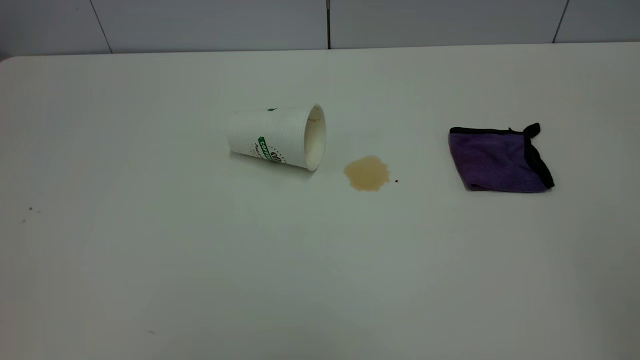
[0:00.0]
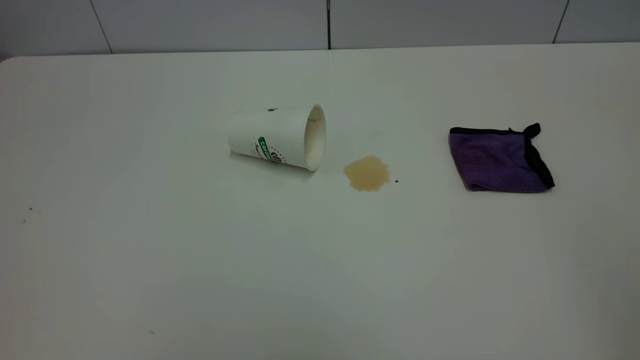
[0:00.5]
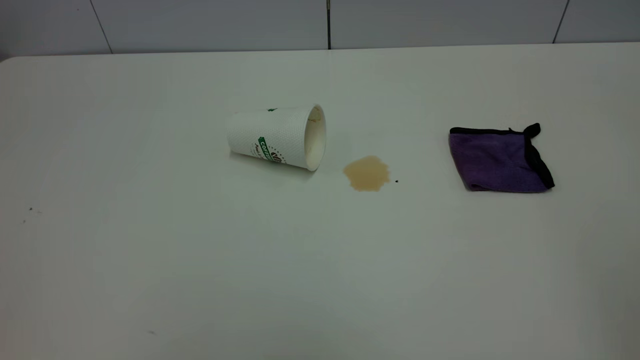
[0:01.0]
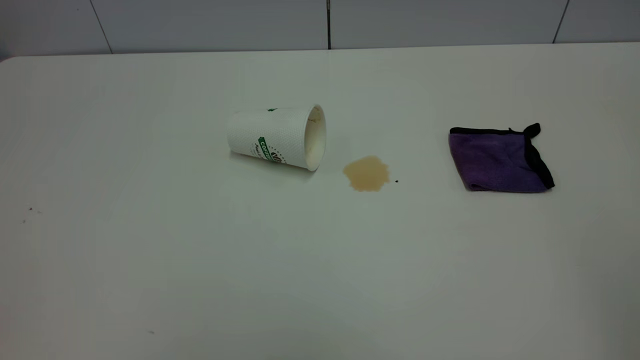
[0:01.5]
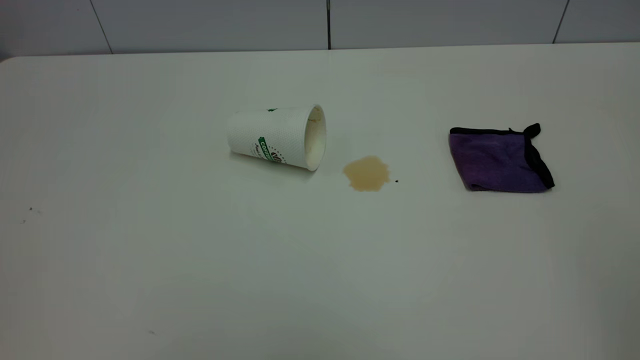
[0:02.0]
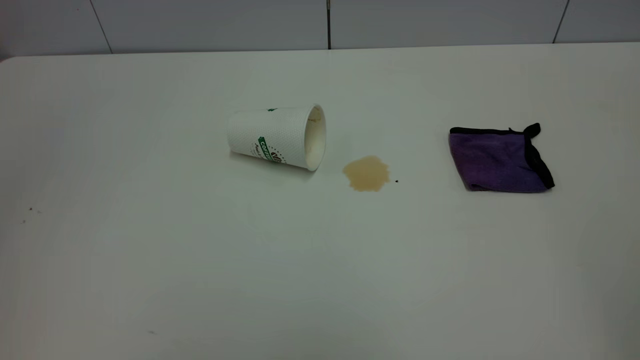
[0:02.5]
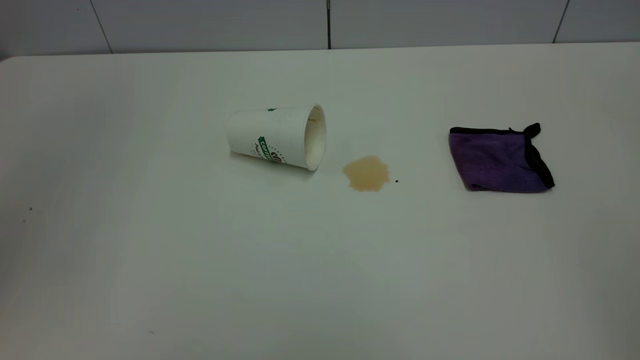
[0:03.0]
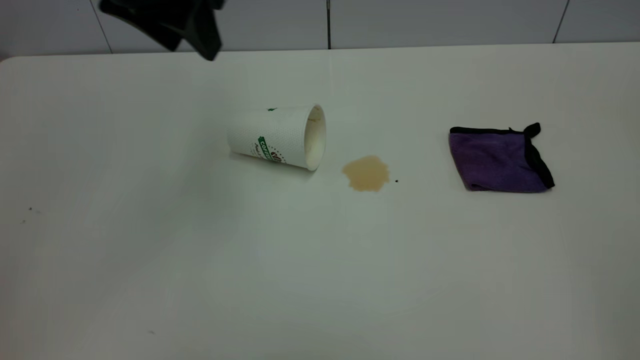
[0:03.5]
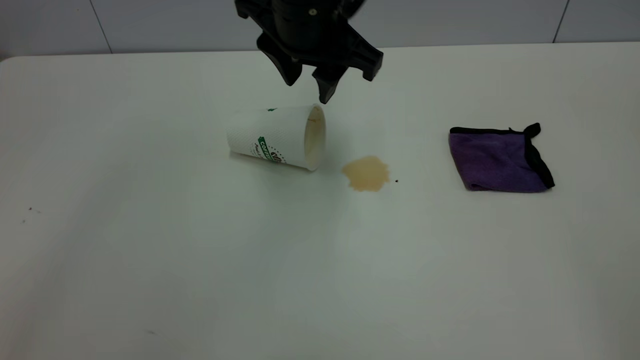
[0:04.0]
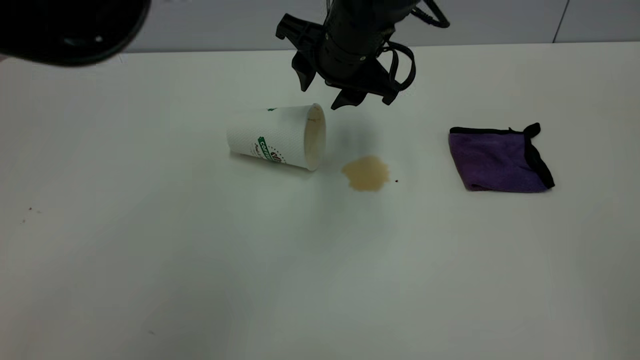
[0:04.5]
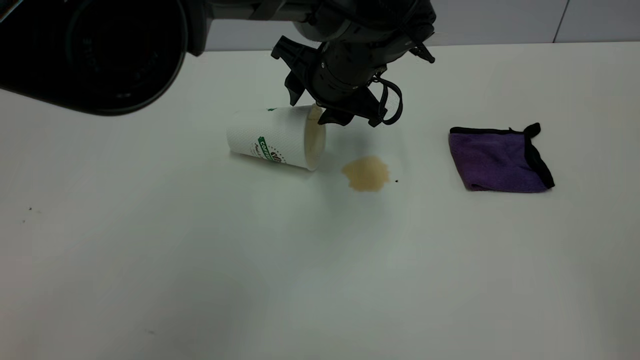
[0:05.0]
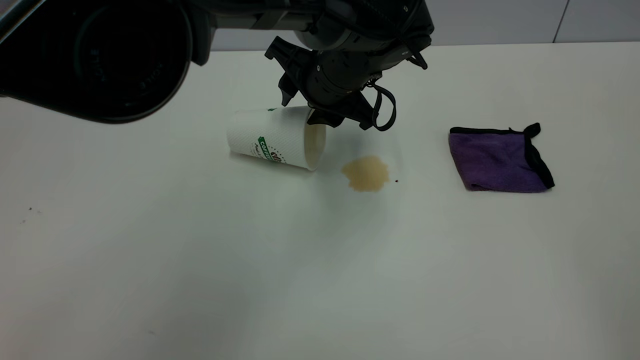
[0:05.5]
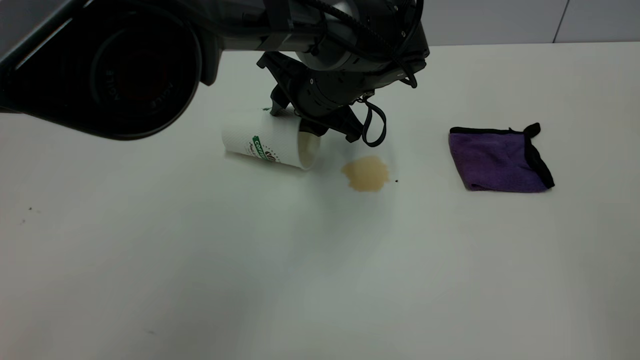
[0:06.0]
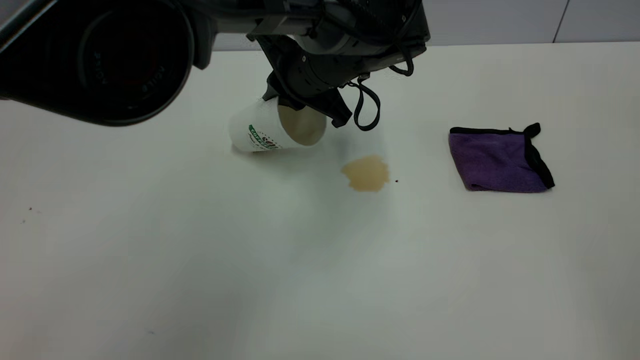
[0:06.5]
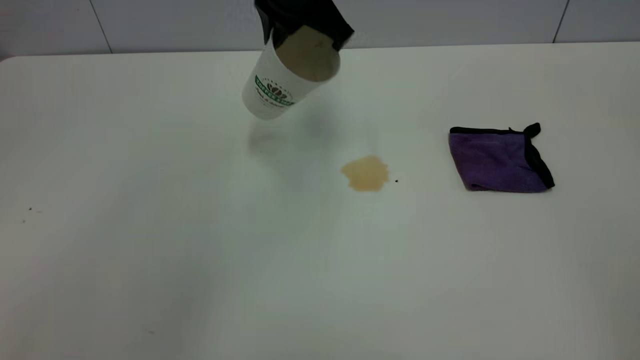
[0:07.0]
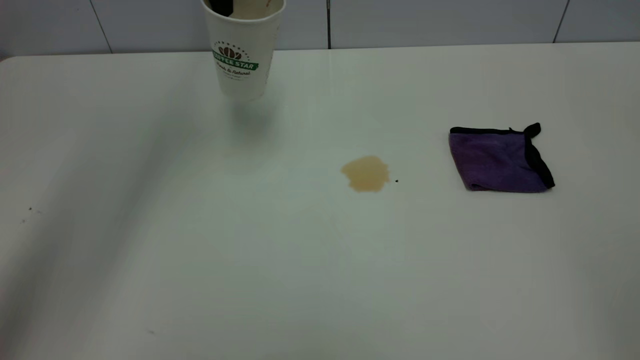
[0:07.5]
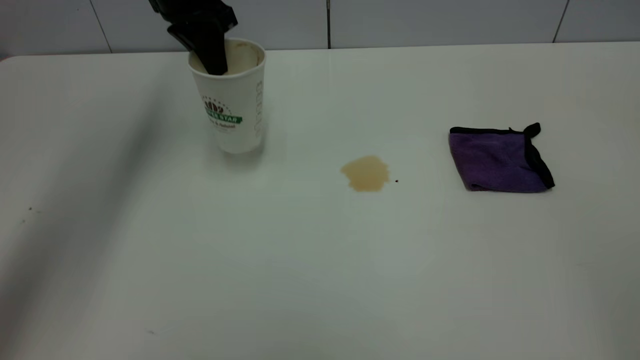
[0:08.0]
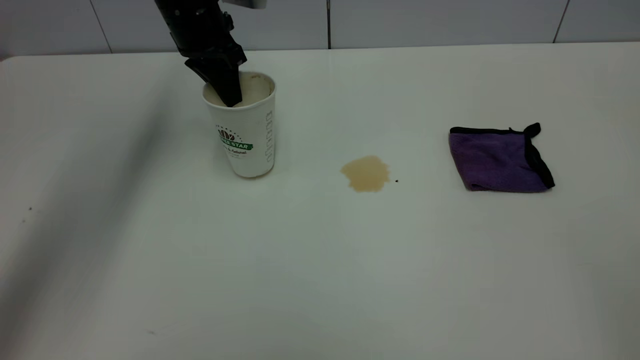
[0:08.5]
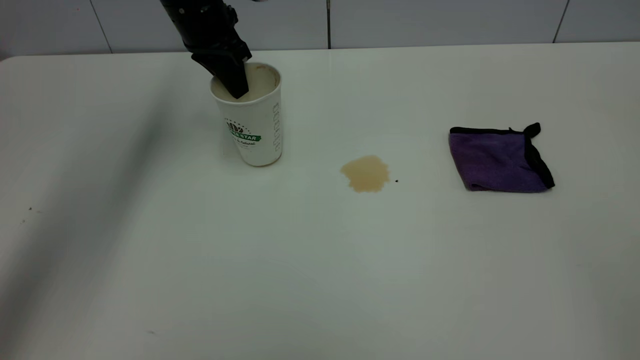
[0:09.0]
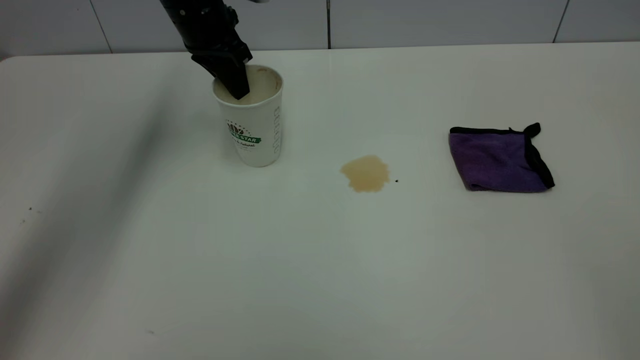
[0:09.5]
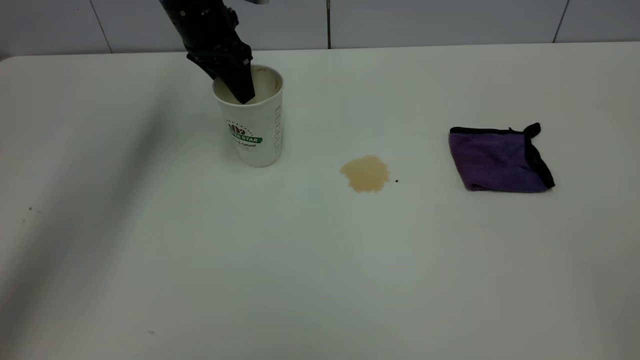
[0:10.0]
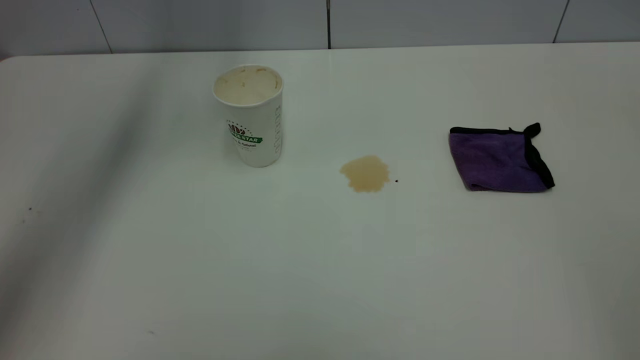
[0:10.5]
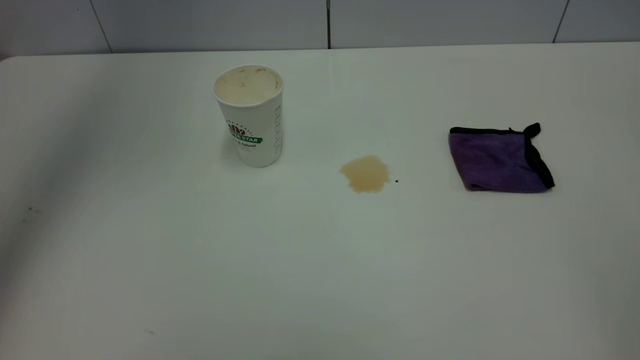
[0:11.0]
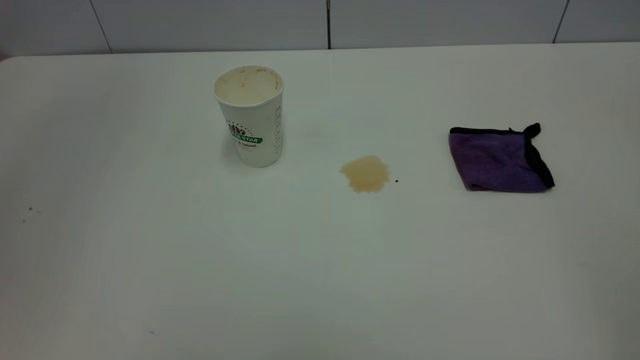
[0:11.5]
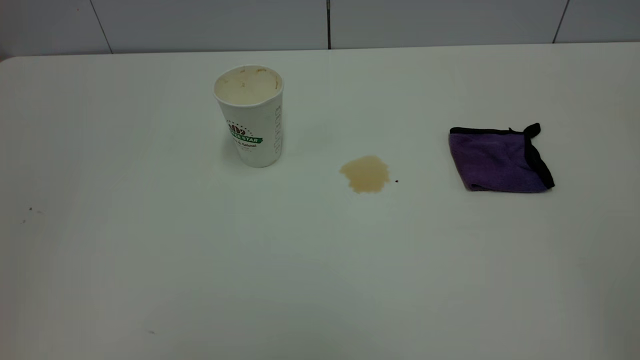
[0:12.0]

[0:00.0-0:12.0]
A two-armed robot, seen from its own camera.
Task of the whole recording: the left gripper pick up the fallen cup and place it upright, the right gripper grasp the purple rag and wipe the tea stain on the table, the right gripper put the purple rag back in its original position.
Step, 0:00.0 to 0:10.0: Stand the paper cup upright.
0:02.0 to 0:04.0: The left gripper heads forward and to the right, covering about 50 cm.
0:04.0 to 0:06.0: The left gripper shifts approximately 10 cm downward.
0:06.0 to 0:08.0: The left gripper is displaced to the left, upward and forward by some 20 cm, and closes.
0:08.0 to 0:10.0: The left gripper opens up.
0:10.0 to 0:12.0: The left gripper is displaced backward and upward by approximately 50 cm.

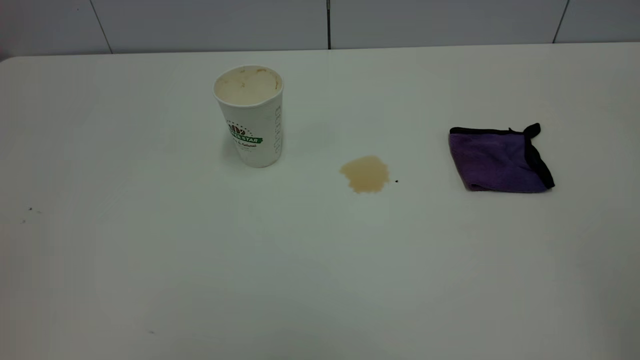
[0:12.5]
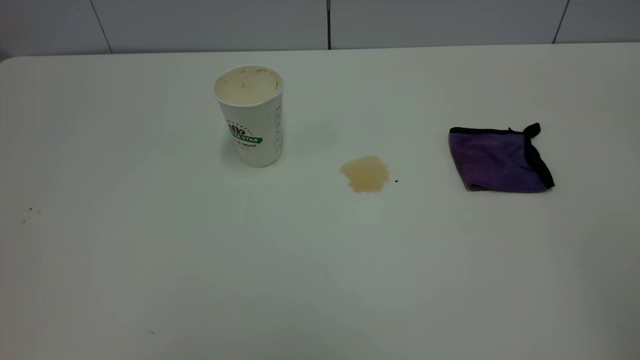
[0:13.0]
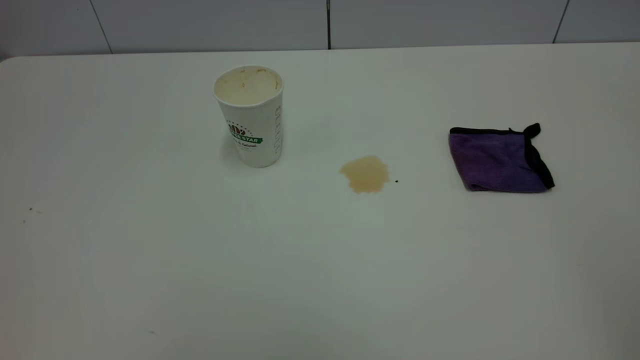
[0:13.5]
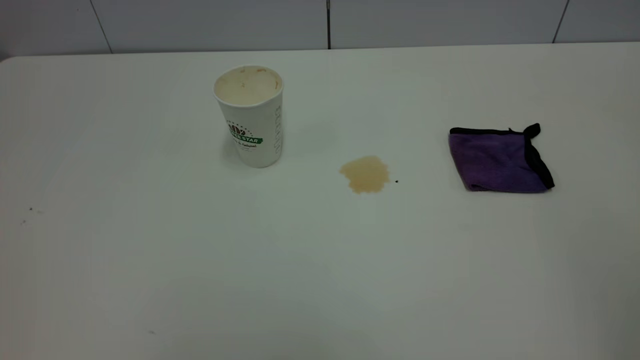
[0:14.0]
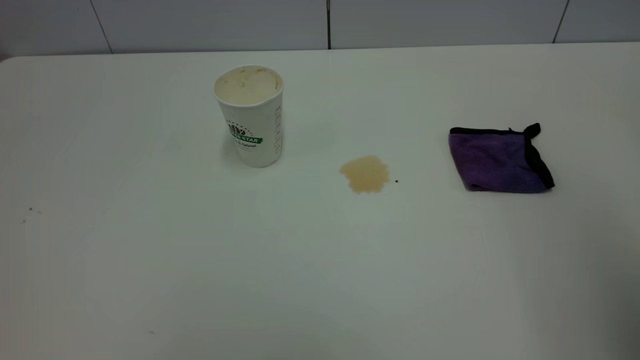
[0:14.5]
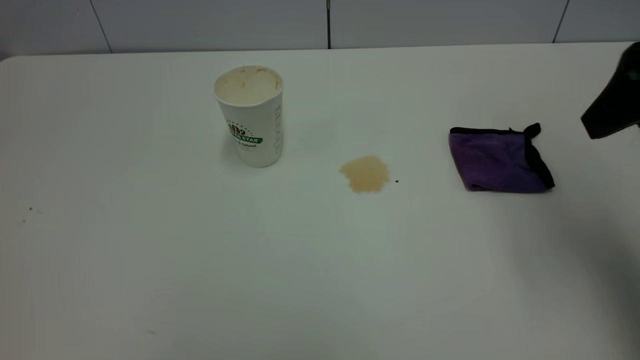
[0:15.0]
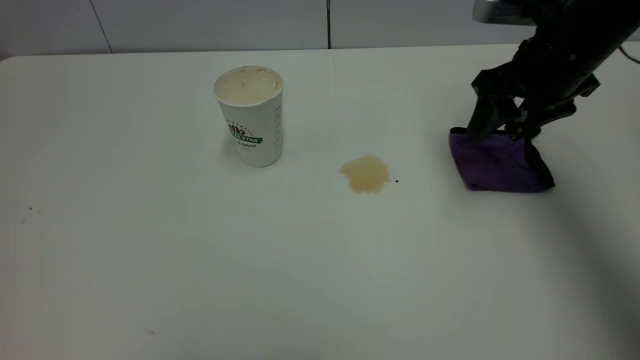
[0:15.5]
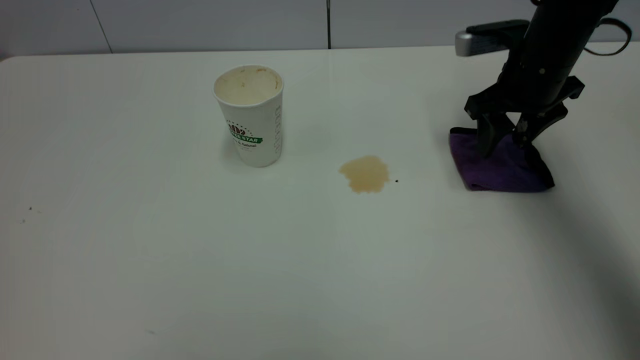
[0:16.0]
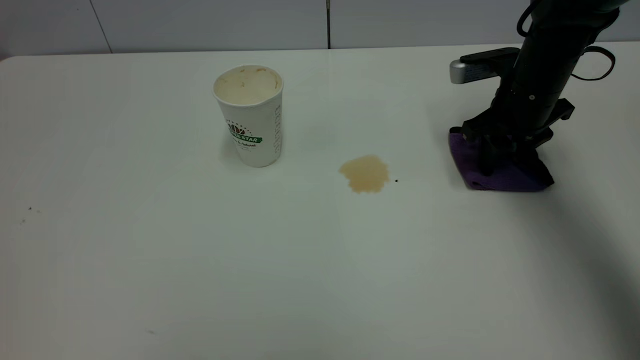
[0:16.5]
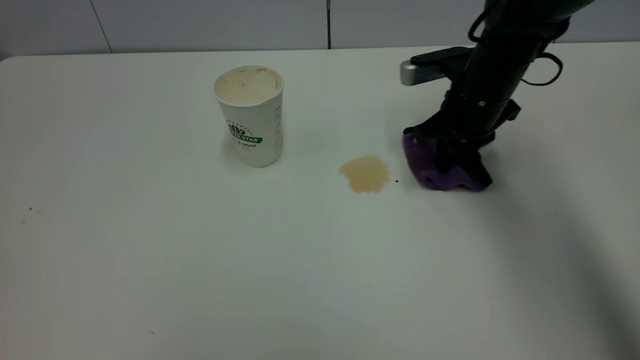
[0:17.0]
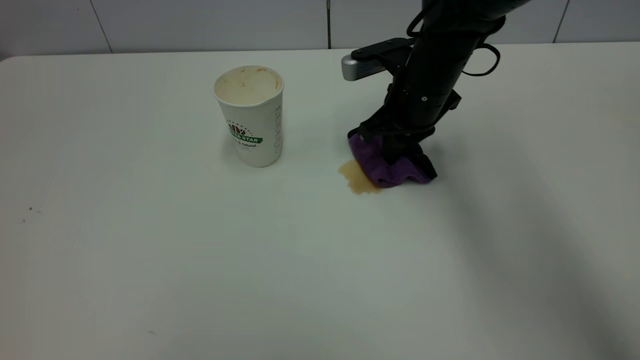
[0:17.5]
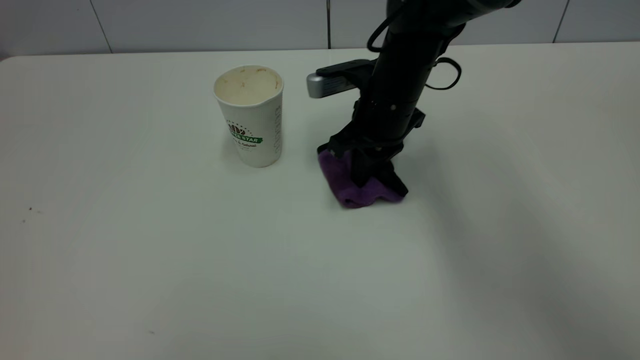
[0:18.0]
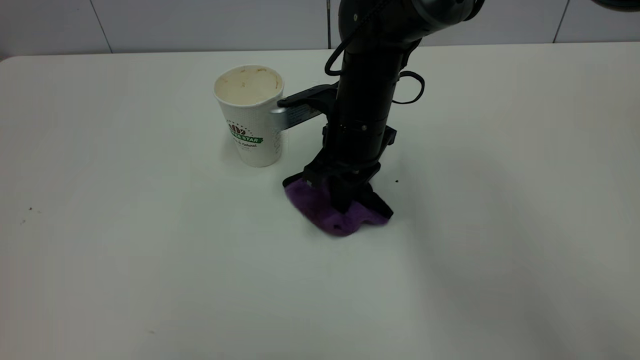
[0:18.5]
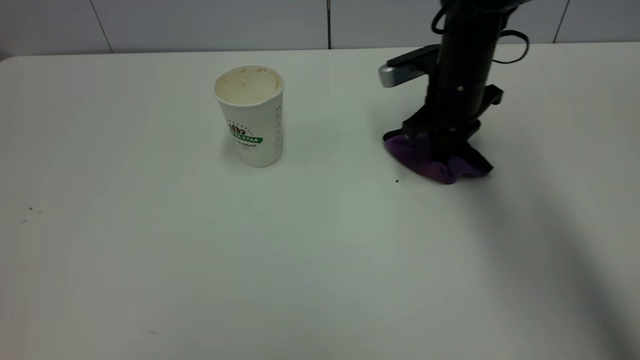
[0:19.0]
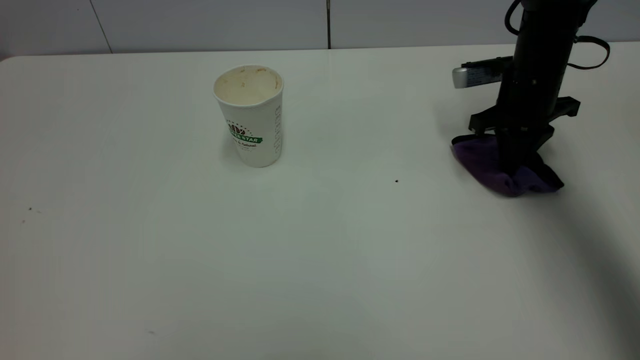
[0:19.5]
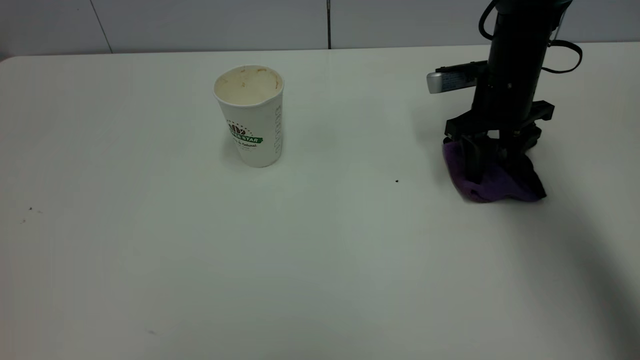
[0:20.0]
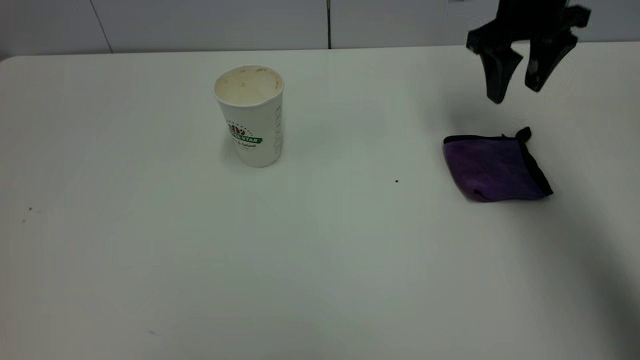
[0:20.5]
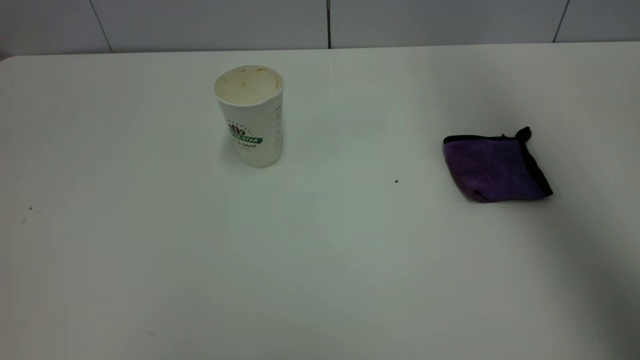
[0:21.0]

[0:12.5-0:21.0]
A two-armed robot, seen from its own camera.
Task of the whole recording: the left gripper pick up the fallen cup and place it upright, the right gripper grasp the purple rag and wipe the tea stain on the table, the right gripper put the purple rag back in its original position.
Step, 0:12.5 to 0:20.5: Wipe the stains off the table with a rag.
0:14.5 to 0:16.5: The right gripper moves forward and downward, roughly 40 cm, and closes.
0:16.5 to 0:19.0: The right gripper is displaced to the left by roughly 5 cm, and closes up.
0:19.0 to 0:21.0: The right gripper heads upward, covering roughly 25 cm, and opens.
